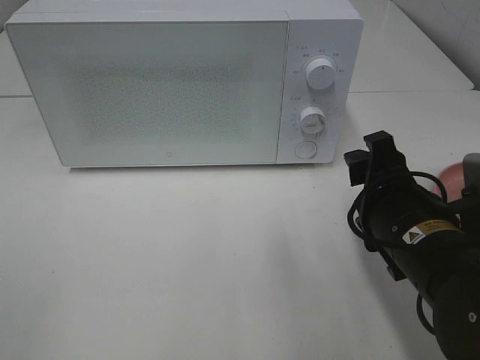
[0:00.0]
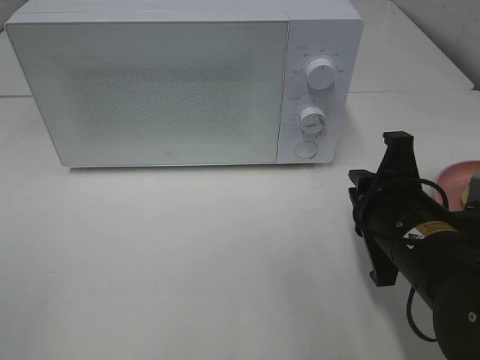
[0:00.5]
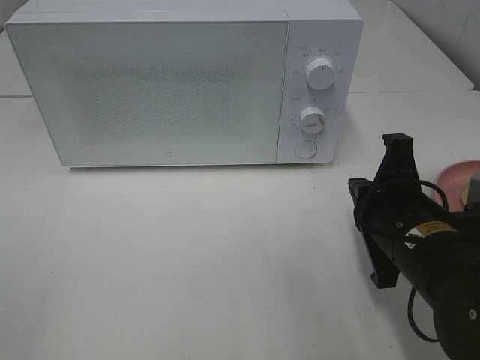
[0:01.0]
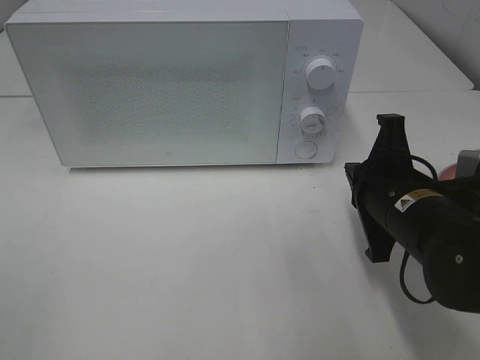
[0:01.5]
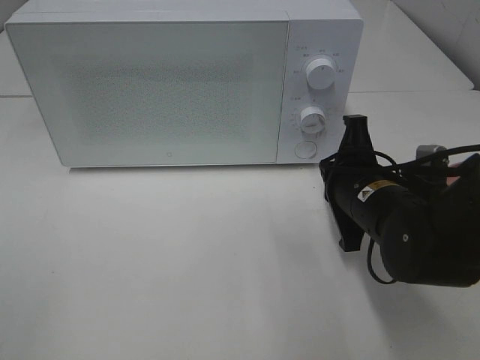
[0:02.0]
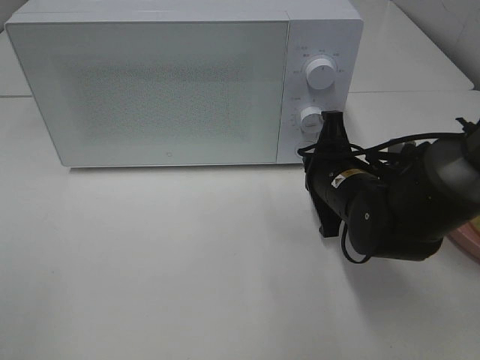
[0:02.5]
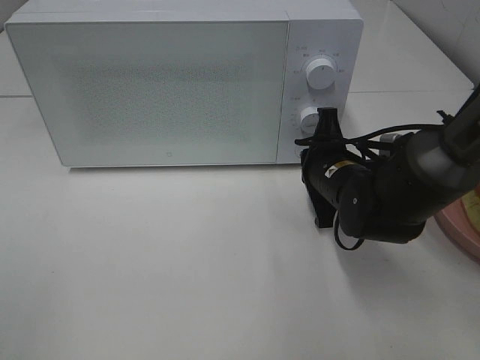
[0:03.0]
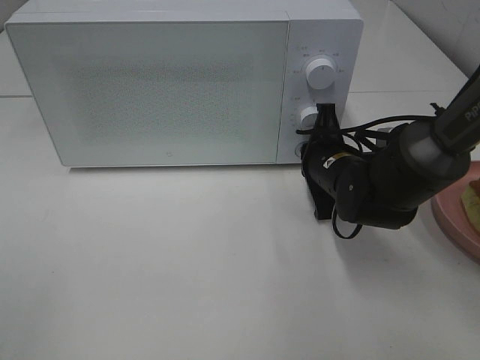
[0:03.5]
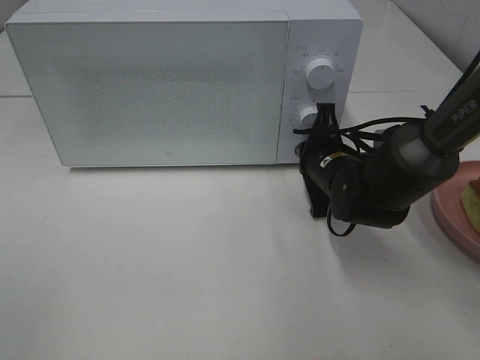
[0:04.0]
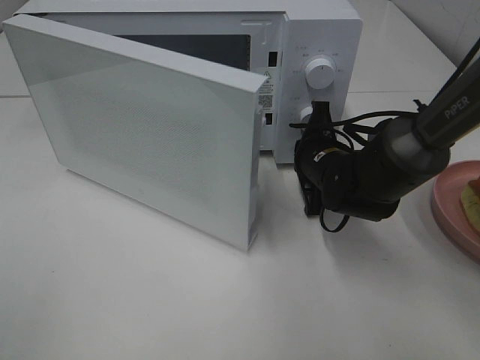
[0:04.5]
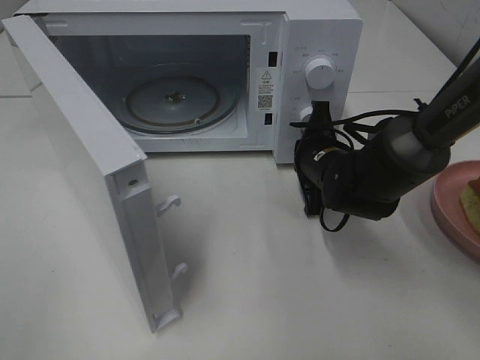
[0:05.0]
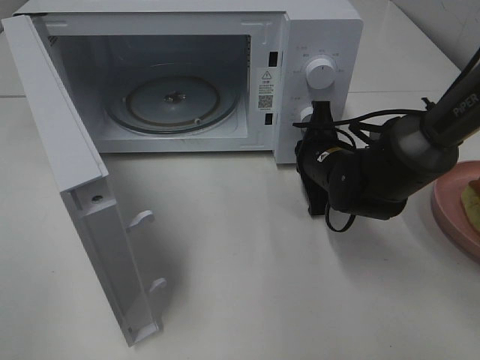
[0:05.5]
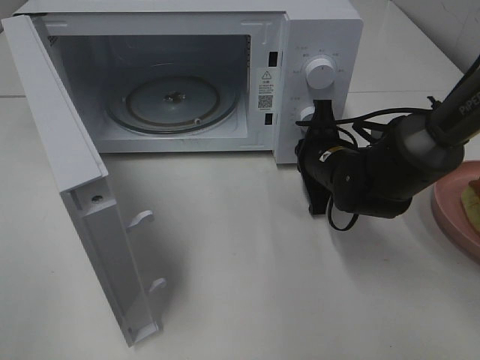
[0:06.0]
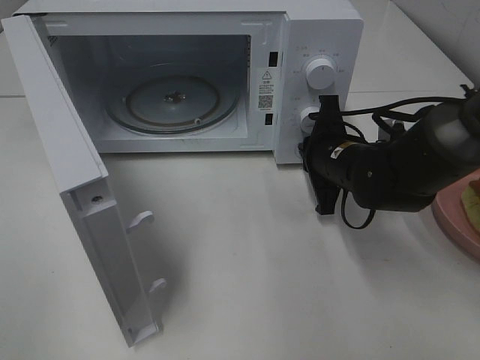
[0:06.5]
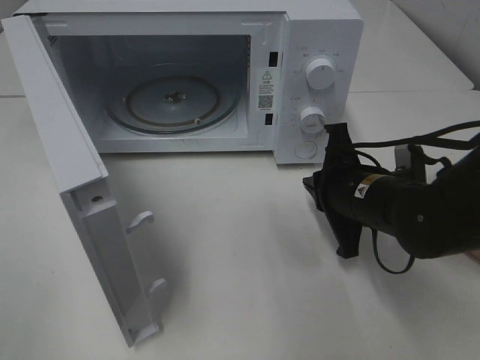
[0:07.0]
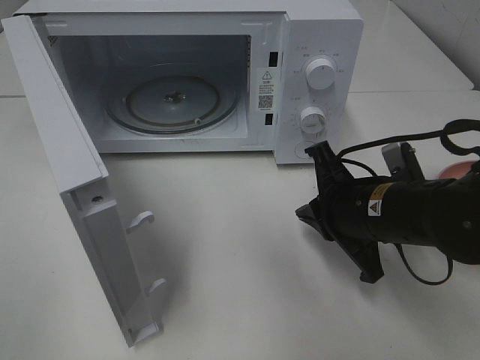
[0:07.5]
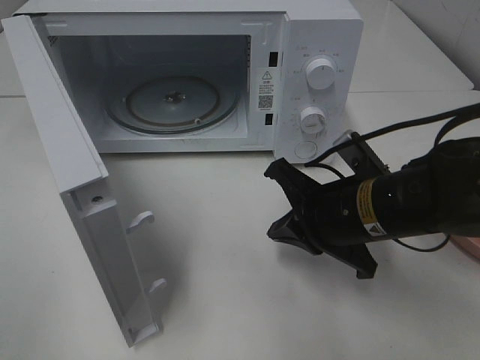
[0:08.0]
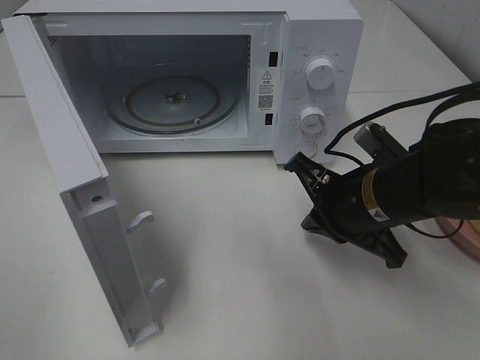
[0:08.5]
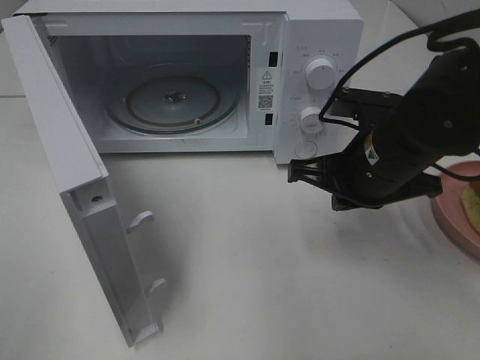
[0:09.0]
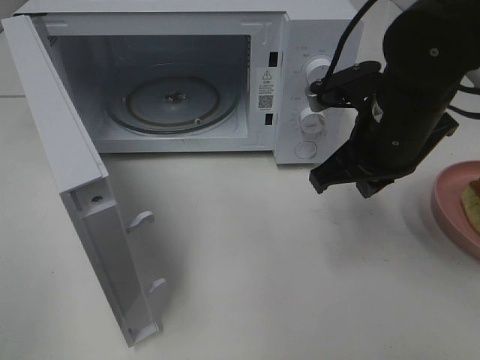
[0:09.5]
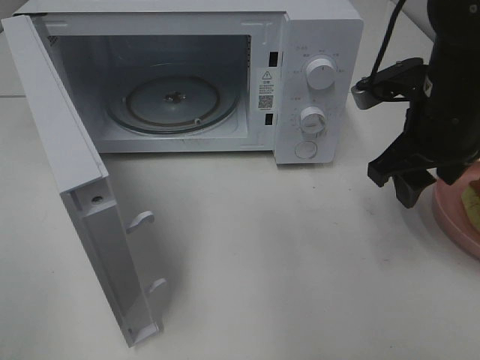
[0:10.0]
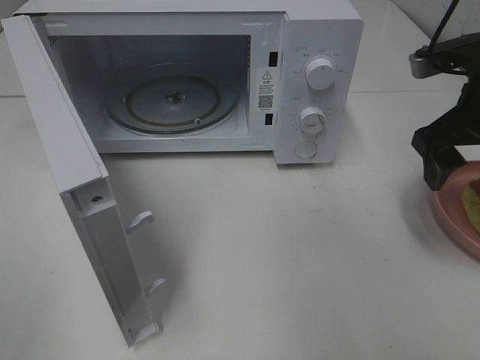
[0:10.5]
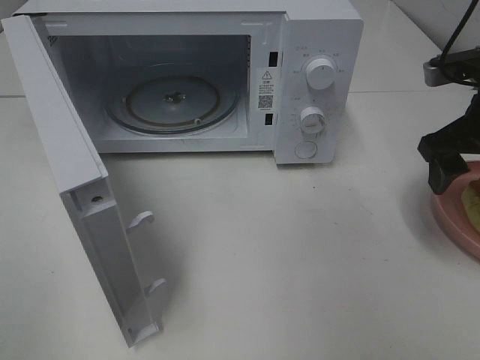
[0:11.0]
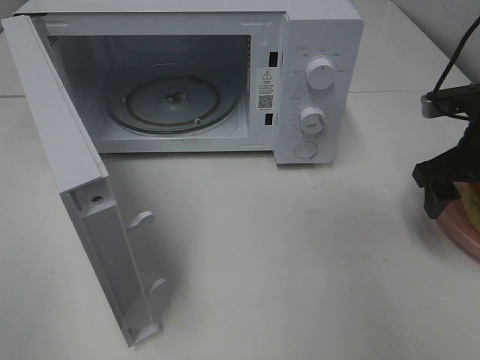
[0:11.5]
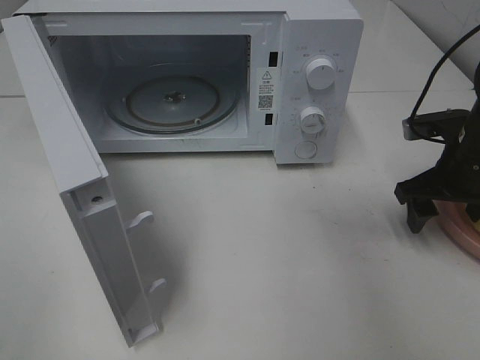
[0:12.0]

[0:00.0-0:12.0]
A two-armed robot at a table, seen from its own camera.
Task of the whole recording: Heat Sandwich.
Step, 0.0 to 6.5 s: Right hand: press the switch.
0.0 to 2.0 s: The right gripper shifts roughly 5 cm forward, and closes up.
2.0 to 4.0 s: The right gripper heads forward, covering approximately 10 cm.
6.0 to 8.0 s: The right gripper goes approximately 15 cm backward.
8.0 to 10.0 s: The right gripper shifts approximately 15 cm upward, to the right and forward, and opens.
10.0 to 12.0 s: The right gripper goes about 10 cm downward and to the right.

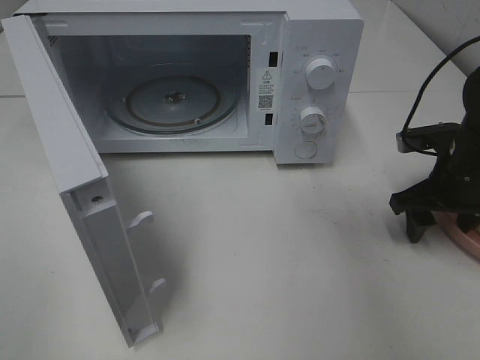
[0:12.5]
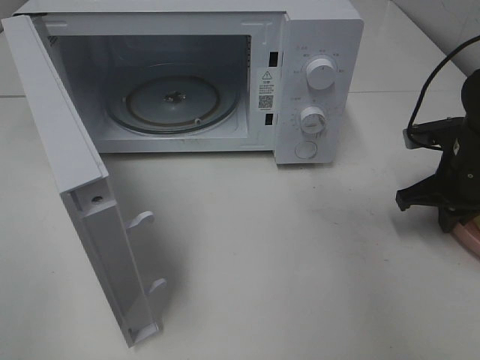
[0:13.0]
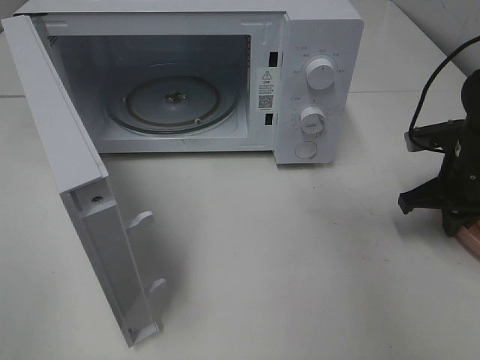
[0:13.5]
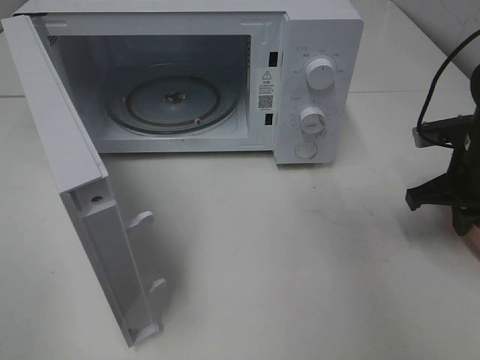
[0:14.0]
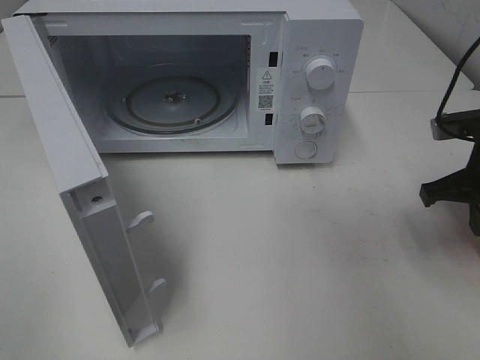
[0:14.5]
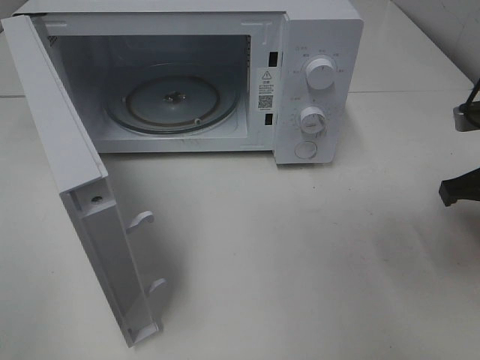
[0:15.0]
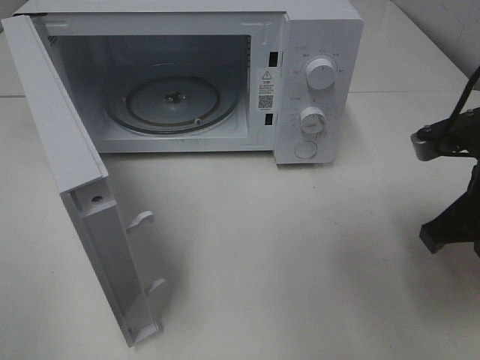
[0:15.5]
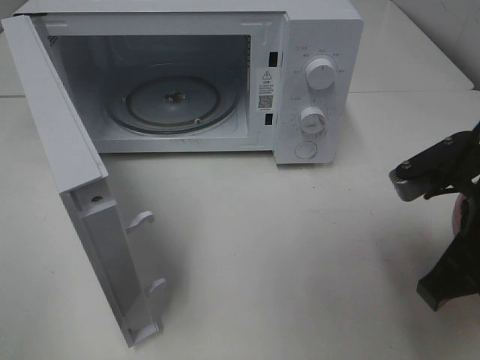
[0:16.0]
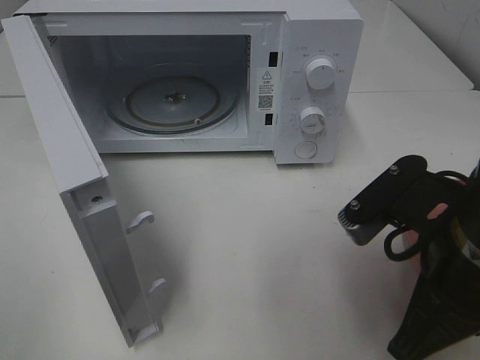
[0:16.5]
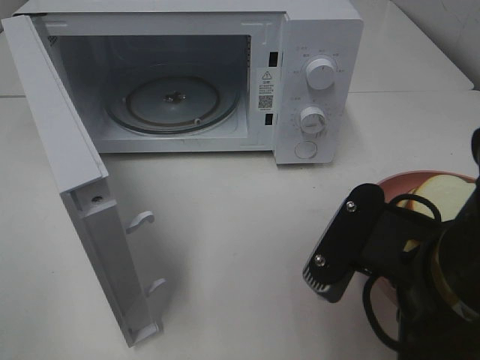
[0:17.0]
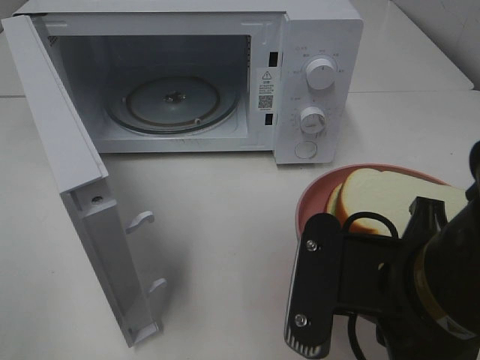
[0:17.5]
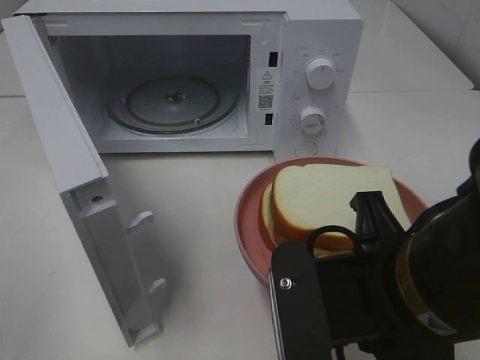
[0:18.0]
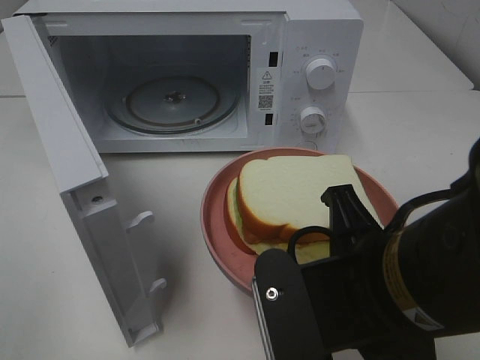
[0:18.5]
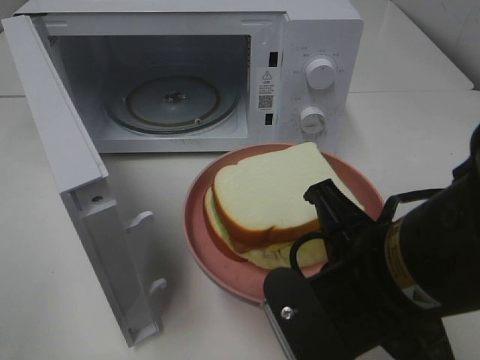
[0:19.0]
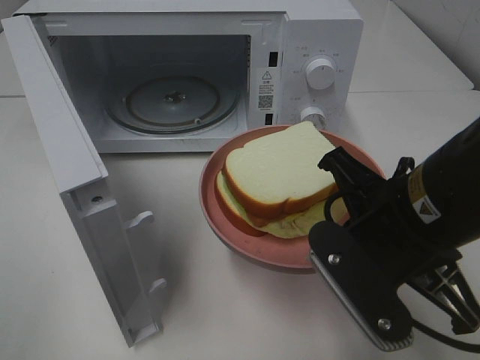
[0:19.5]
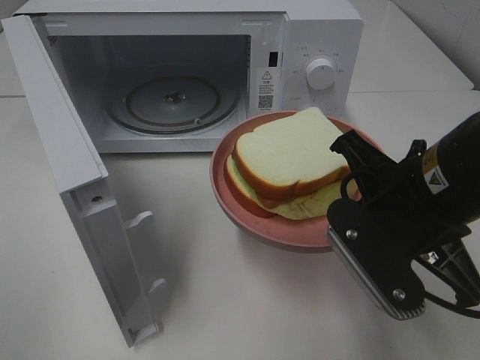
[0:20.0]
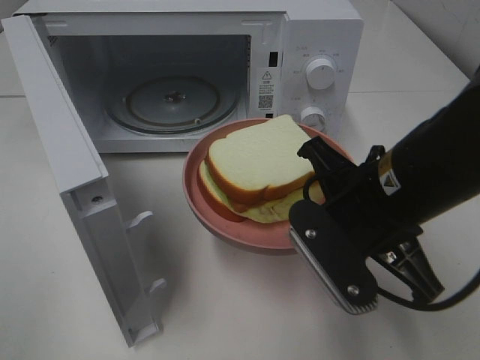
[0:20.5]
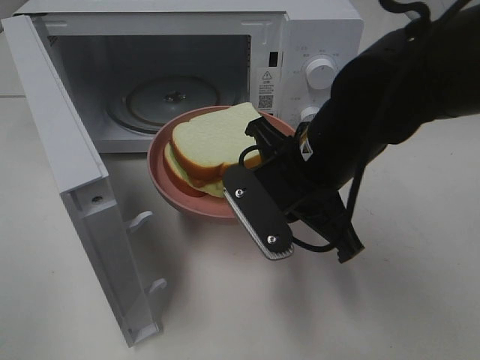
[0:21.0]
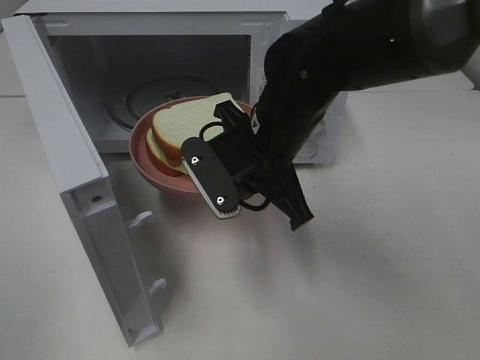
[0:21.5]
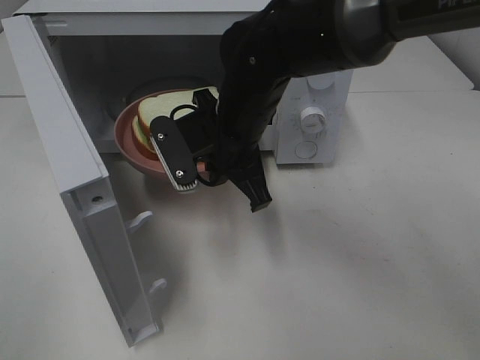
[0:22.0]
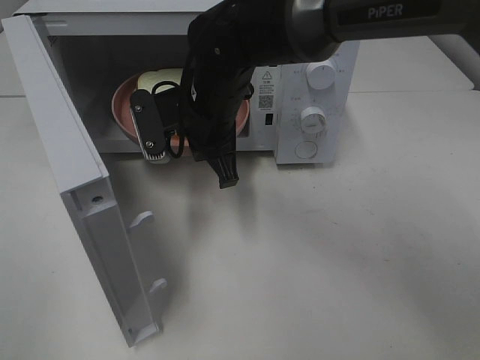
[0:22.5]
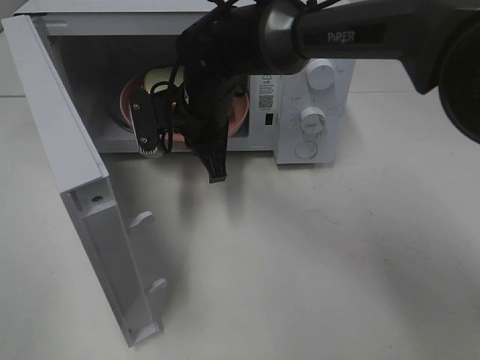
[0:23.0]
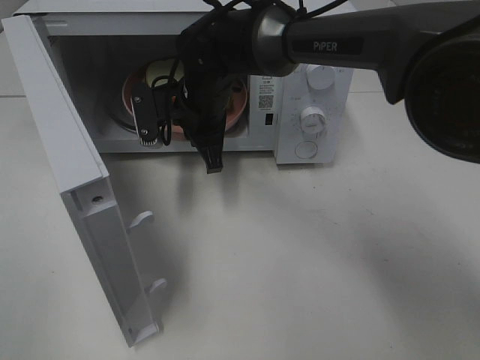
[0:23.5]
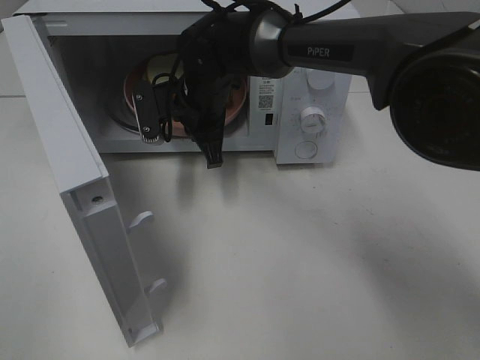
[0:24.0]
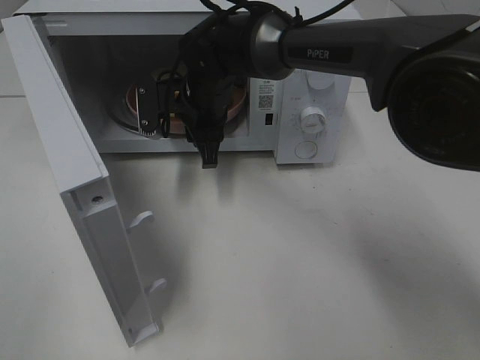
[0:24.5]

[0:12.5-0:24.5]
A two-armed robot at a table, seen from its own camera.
Task of the whole recording: Heat Sandwich.
12.5 to 14.5 s: The right gripper shifts by approximately 5 cm, and closes.
14.5 to 16.5 s: The right gripper is displaced backward and to the left by roughly 20 cm.
16.5 to 18.5 s: The right gripper travels to the left by roughly 5 cm.
18.5 to 20.5 s: The right gripper shifts about 10 cm forward.
20.5 to 22.5 s: The right gripper moves forward and to the left, roughly 20 cm.
22.5 to 24.5 s: The right gripper shifts some 5 cm forward, and opens.

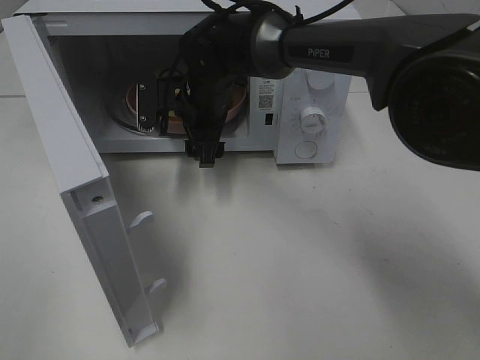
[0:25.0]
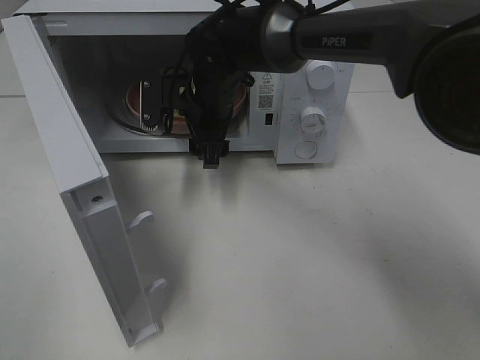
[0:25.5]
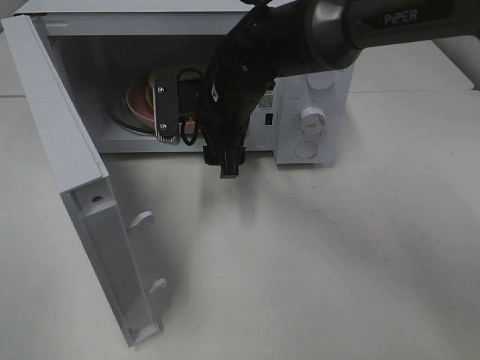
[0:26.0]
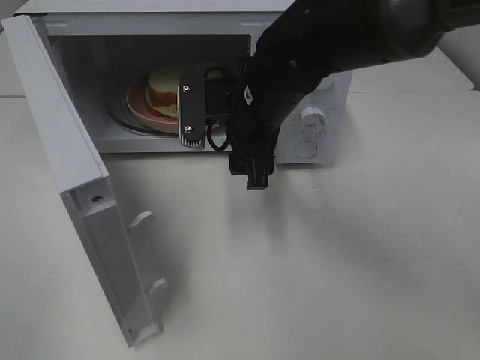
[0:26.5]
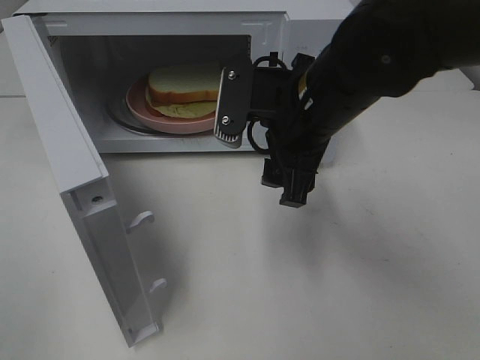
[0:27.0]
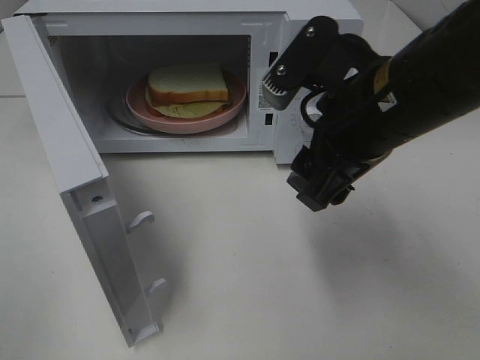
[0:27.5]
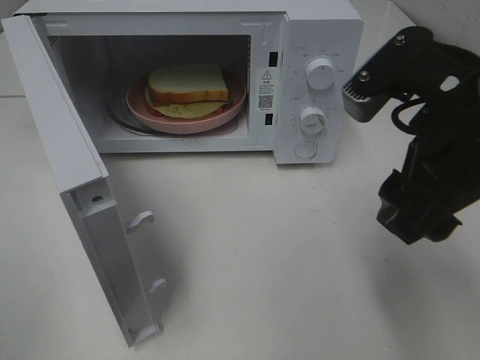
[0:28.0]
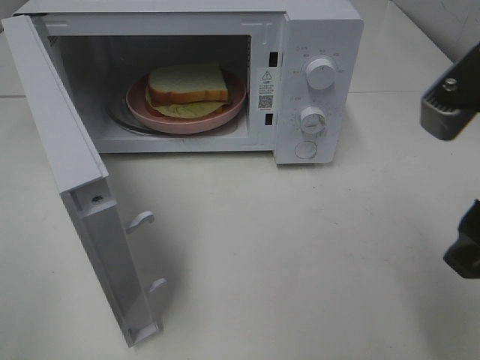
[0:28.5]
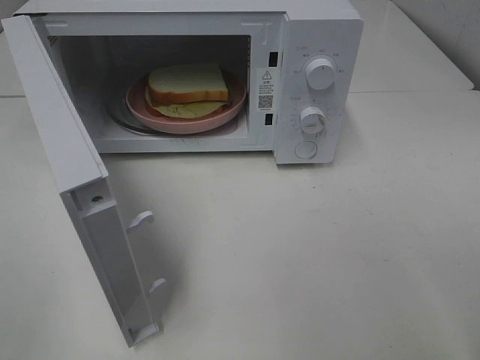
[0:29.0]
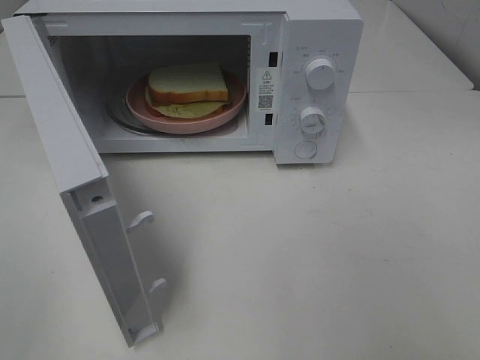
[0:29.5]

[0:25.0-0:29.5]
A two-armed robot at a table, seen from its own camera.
Task of the whole recording: Heat Sandwich.
25.0 to 27.0 s: The right gripper is displaced backward, to the right and upward by approximately 20 cm.
27.0 to 29.5 s: The right gripper shifts some 30 cm backward and to the right.
